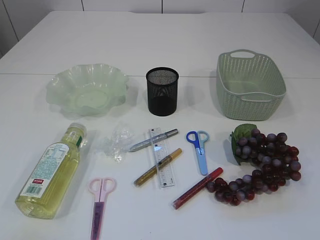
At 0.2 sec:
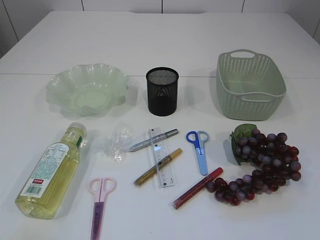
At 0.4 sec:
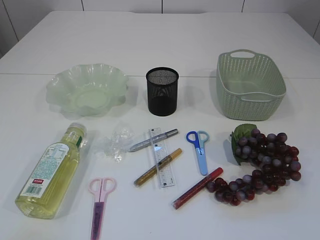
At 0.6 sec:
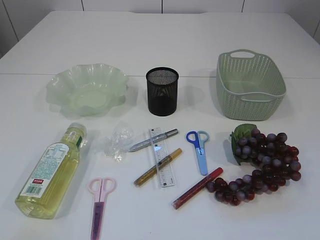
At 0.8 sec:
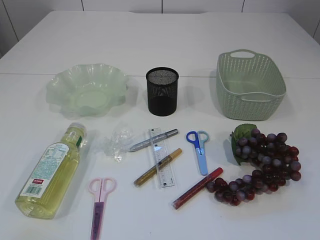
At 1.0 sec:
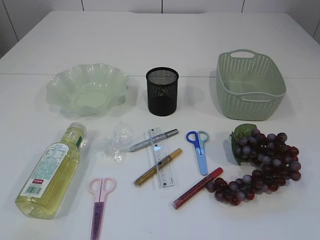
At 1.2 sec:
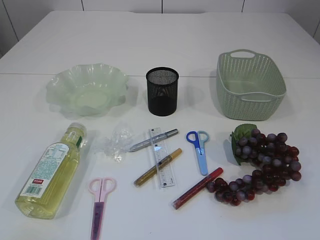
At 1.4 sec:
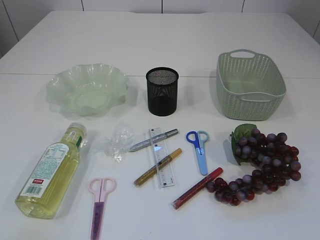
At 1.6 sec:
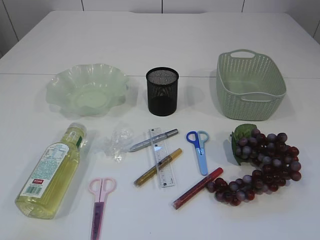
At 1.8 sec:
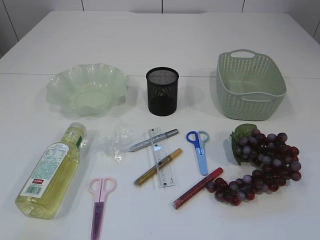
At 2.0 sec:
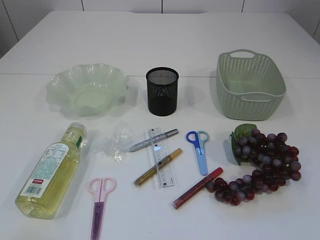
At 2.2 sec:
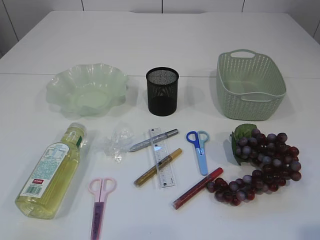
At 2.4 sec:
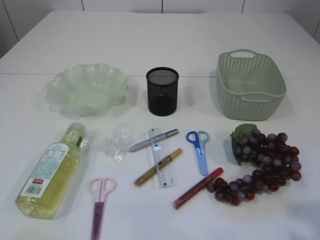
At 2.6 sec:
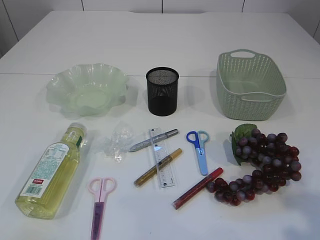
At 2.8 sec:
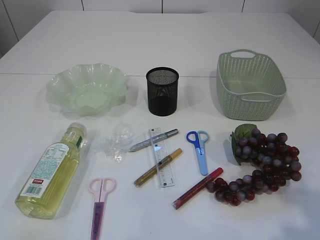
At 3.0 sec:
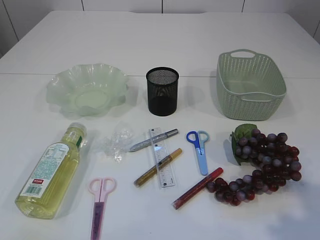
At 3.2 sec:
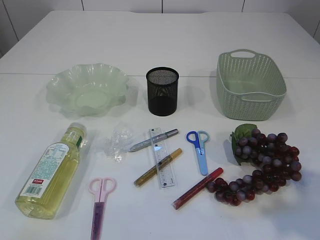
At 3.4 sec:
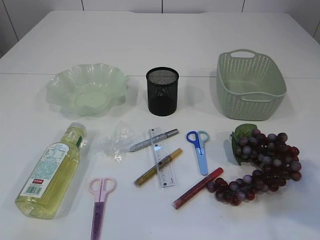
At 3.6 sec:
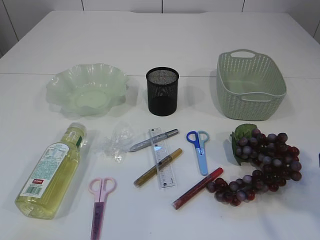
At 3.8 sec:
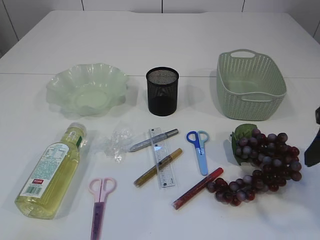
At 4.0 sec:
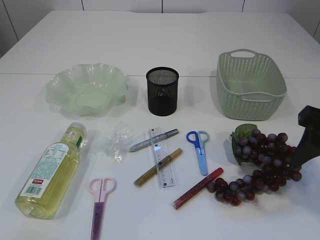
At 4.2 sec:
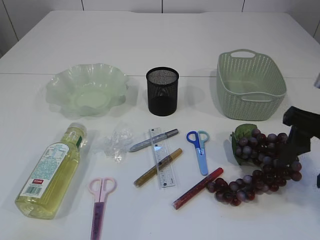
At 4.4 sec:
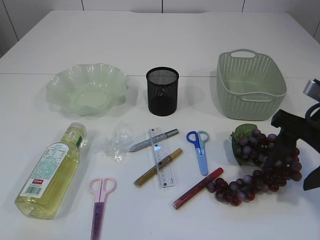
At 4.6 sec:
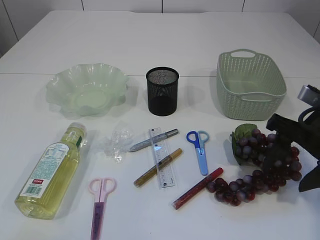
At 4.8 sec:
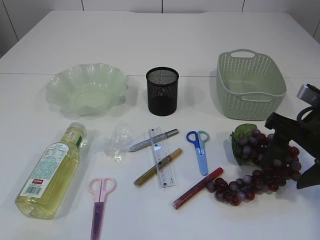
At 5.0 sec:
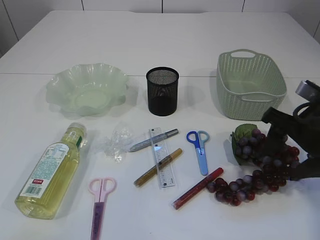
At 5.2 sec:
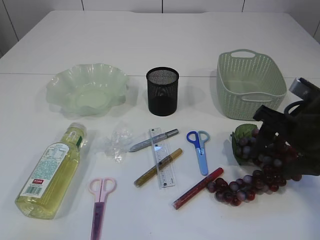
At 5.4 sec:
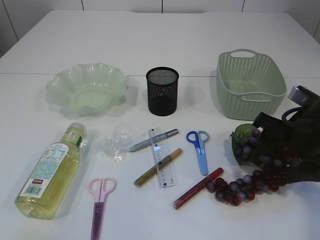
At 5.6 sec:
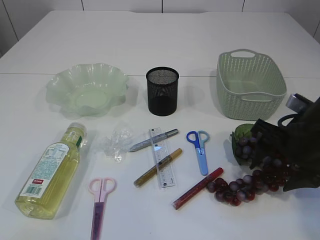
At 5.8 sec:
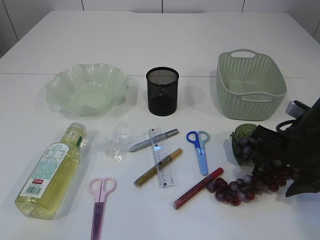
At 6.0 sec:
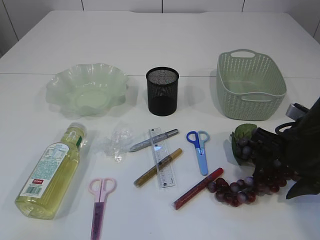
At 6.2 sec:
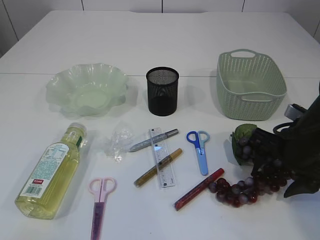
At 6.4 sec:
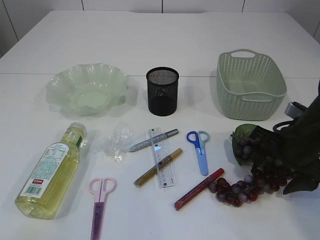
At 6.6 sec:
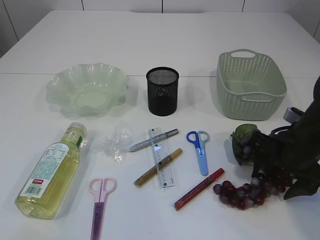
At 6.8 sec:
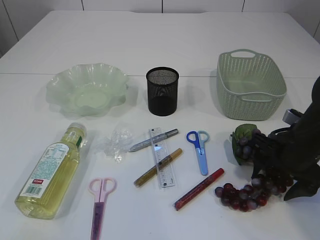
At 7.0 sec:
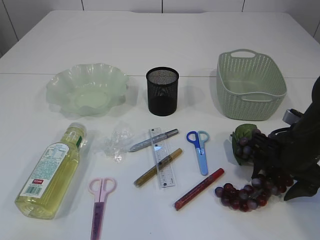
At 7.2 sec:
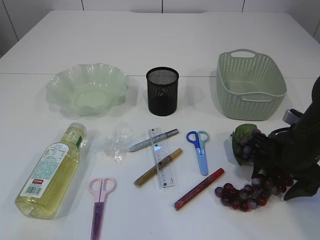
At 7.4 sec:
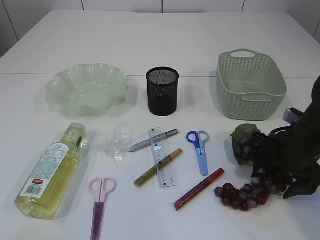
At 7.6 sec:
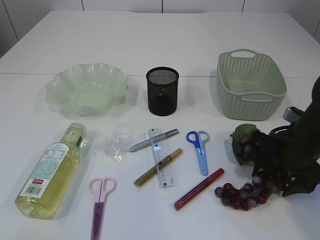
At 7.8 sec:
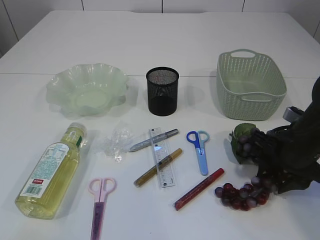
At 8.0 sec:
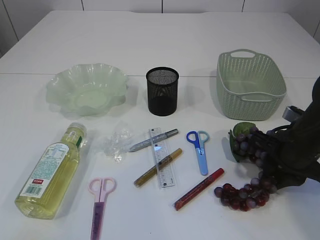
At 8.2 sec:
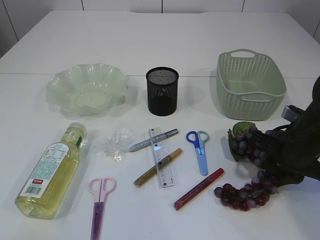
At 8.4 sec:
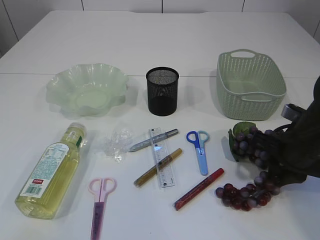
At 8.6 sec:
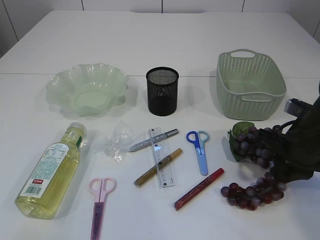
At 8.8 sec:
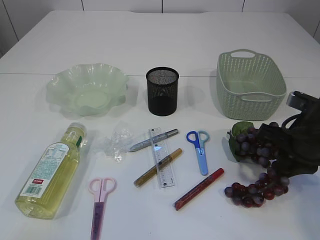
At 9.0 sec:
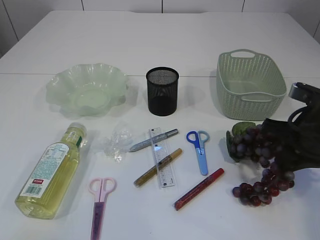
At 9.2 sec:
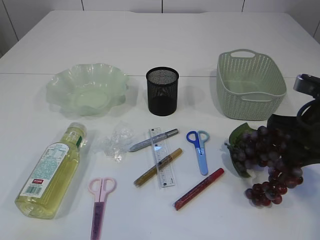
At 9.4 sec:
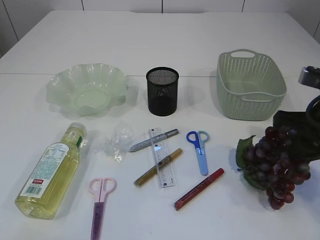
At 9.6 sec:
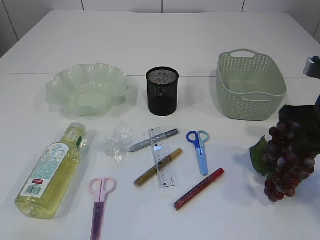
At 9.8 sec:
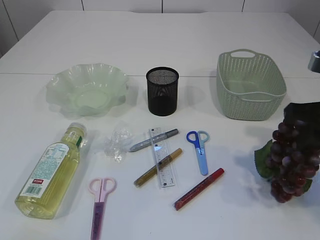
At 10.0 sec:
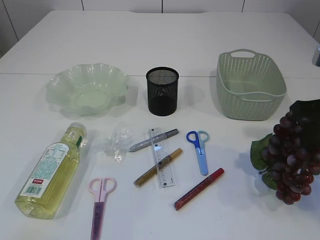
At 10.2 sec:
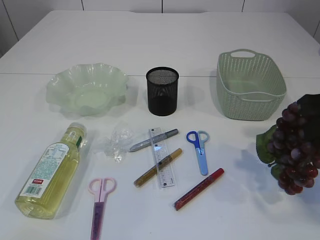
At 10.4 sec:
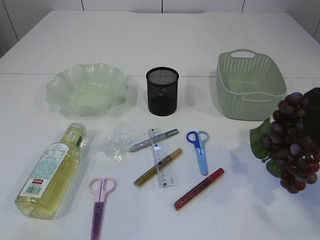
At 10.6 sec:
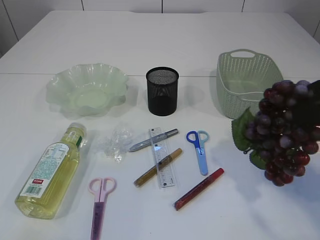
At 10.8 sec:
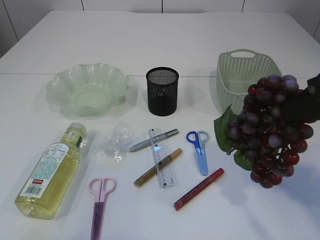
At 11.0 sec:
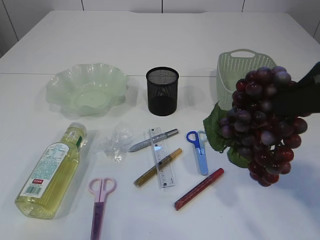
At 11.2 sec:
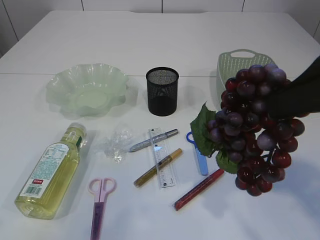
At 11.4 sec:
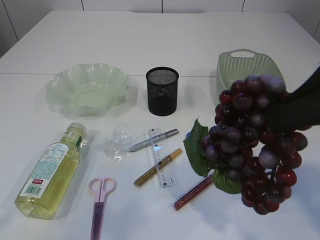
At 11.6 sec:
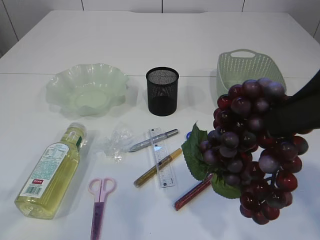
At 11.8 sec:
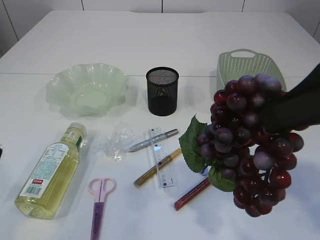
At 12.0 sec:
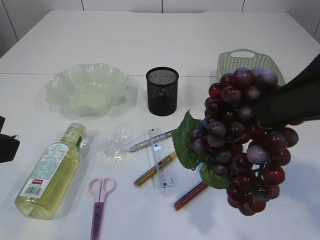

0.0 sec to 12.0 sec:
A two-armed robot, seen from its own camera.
1.6 sec to 3.0 sec: The right gripper travels forward by about 10 cm.
3.0 sec to 4.4 sec: The right gripper goes about 15 cm forward and downward.
4.4 sec to 6.0 sec: The right gripper travels downward by some 5 cm.
6.0 sec to 7.6 sec: The grippers make only small movements.
7.6 sec to 9.0 sec: The right gripper closes up.
9.0 sec to 10.4 sec: The right gripper is displaced upward and backward by approximately 15 cm.
10.4 sec to 12.0 sec: The right gripper goes about 5 cm upward. Meanwhile the left gripper heads forward and to the right, covering some 15 cm.

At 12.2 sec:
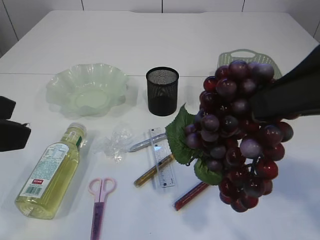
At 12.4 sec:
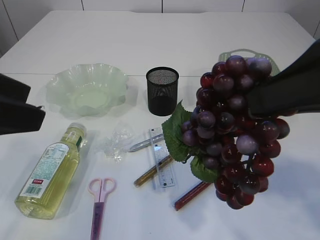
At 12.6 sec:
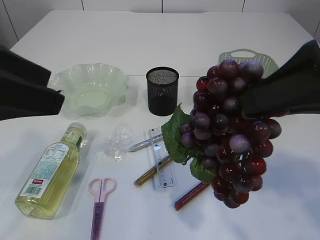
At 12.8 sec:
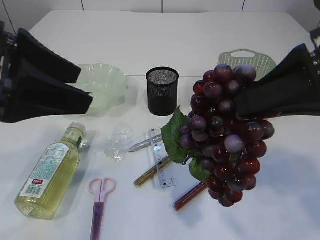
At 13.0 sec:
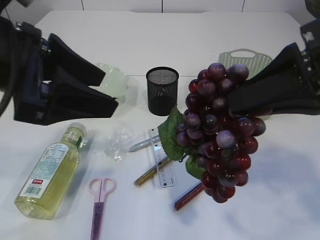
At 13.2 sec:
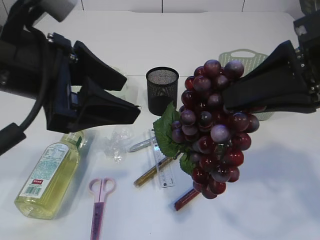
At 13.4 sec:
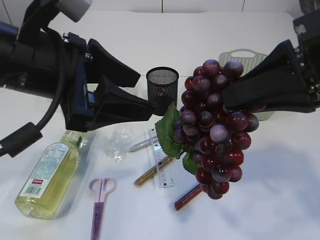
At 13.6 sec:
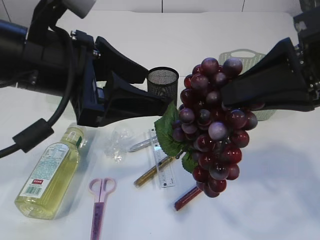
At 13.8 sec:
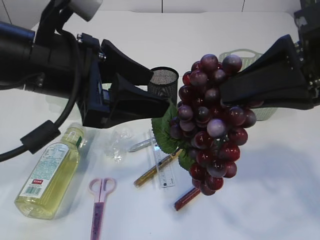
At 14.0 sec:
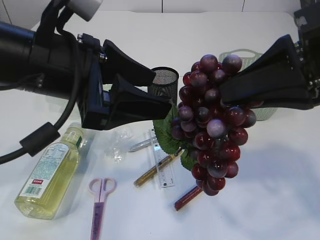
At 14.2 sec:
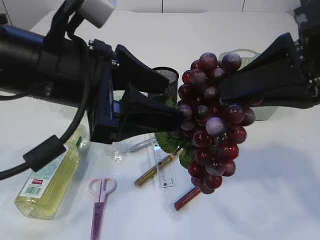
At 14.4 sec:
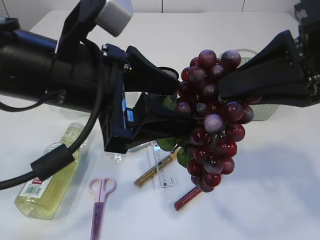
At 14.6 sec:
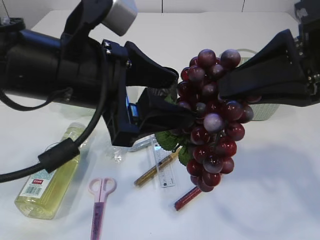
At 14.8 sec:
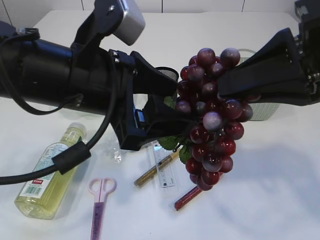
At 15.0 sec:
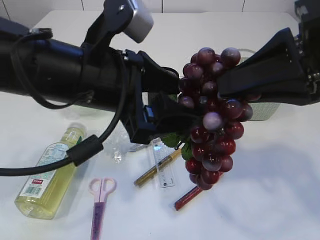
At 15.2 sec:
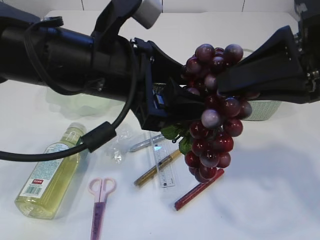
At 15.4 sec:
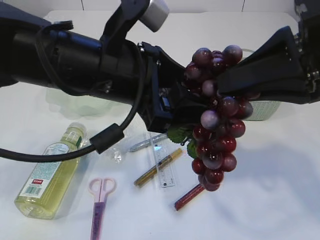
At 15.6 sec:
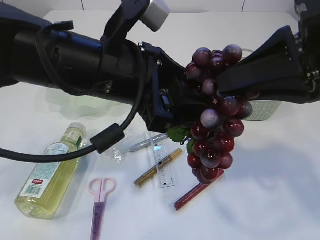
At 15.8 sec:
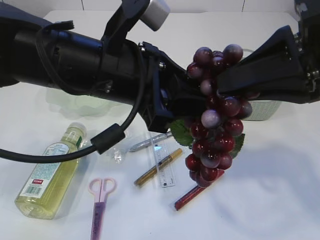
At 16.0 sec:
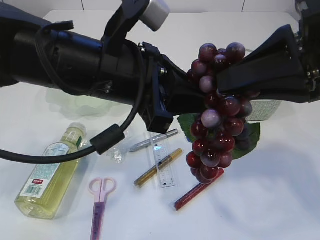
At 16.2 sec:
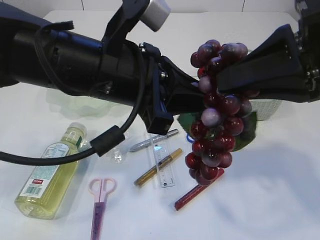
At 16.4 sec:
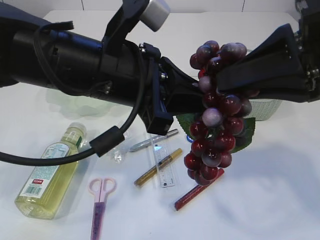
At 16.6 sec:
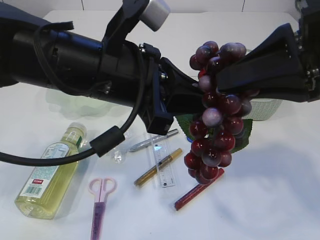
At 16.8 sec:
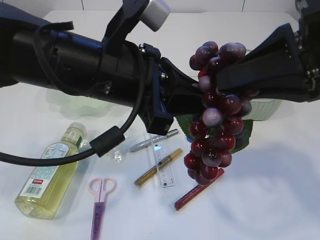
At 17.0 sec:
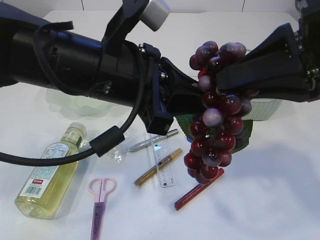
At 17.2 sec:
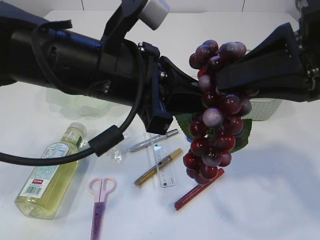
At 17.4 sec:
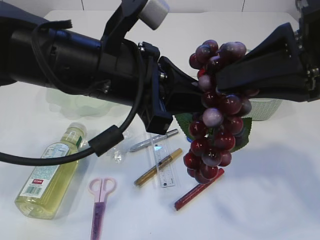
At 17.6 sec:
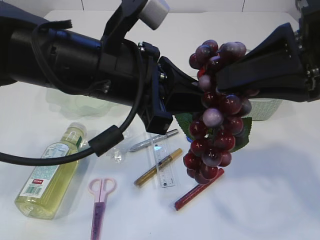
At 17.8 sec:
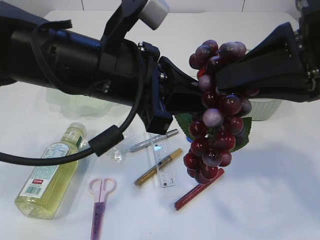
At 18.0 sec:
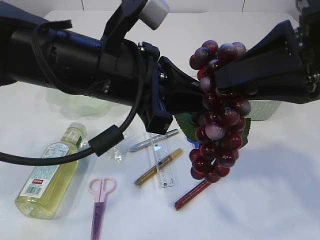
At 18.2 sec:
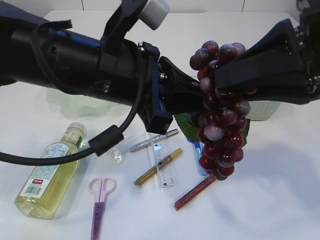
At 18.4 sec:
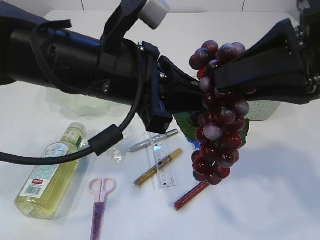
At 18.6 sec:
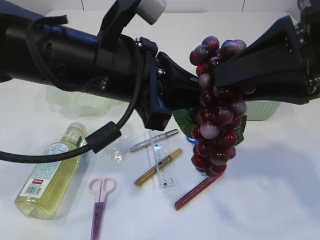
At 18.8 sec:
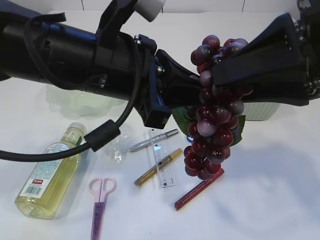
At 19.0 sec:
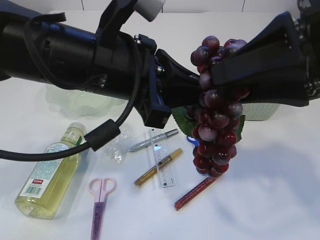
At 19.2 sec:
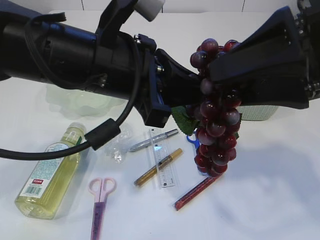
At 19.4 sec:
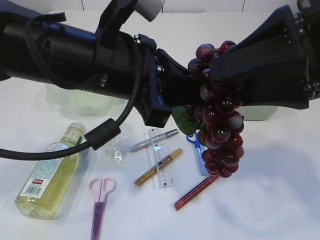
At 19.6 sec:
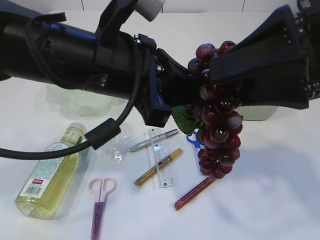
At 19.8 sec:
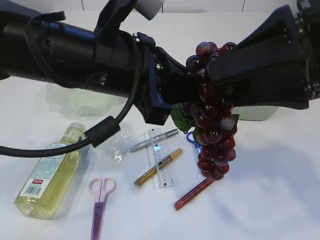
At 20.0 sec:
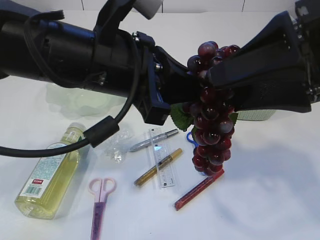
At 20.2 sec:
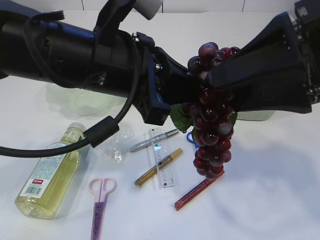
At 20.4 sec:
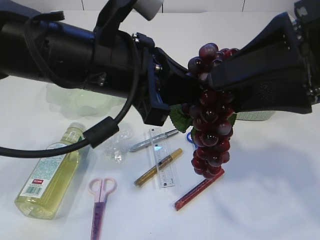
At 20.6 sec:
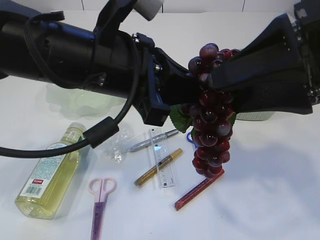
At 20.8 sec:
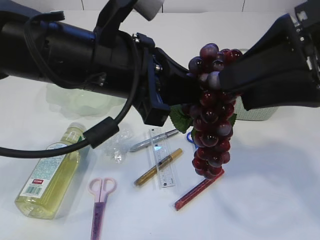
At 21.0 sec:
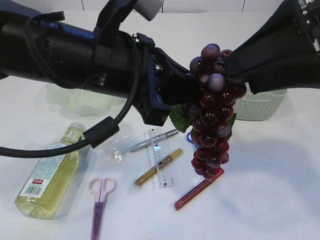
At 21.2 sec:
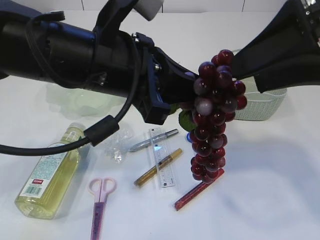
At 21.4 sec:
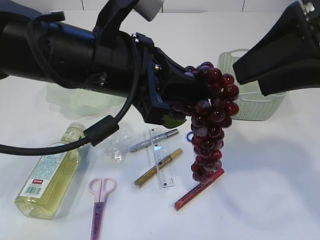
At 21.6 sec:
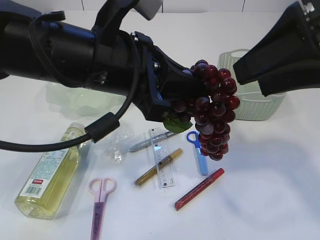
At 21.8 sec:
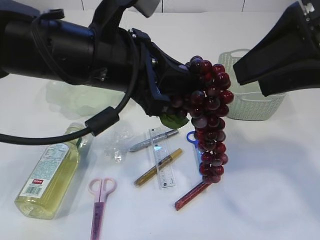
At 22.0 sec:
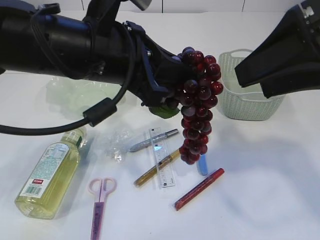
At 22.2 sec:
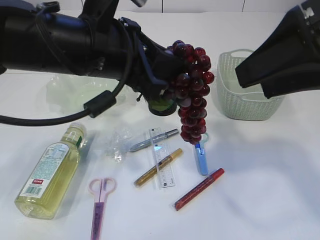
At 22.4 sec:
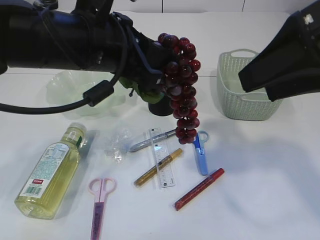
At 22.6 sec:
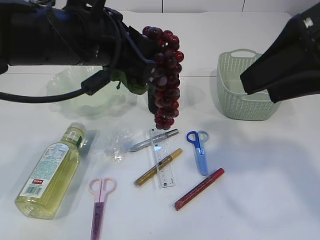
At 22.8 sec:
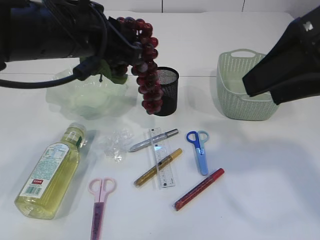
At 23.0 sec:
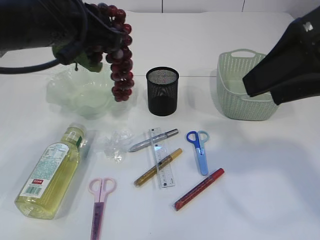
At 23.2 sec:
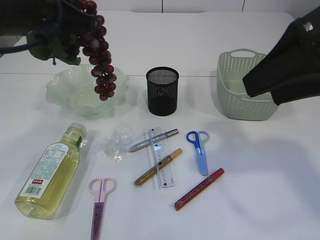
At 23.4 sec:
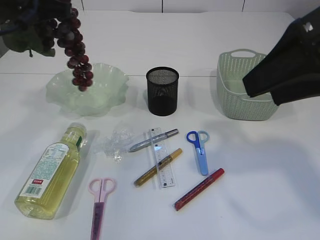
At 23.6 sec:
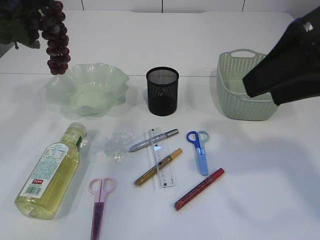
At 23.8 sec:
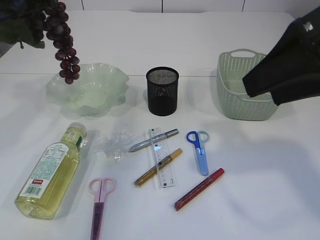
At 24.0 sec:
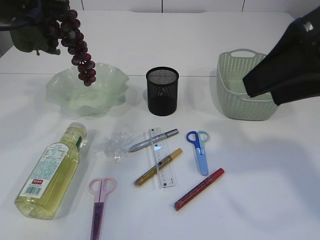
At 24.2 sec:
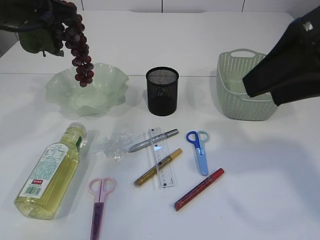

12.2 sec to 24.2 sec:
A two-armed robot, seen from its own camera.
Step, 12.6 sec to 22.2 sec: Hand over the grapes.
12.2 sec to 13.8 sec: The left gripper moves to the right and forward, approximately 15 cm.
13.8 sec to 15.2 sec: The left gripper shifts approximately 5 cm to the right.
15.2 sec to 16.6 sec: The left gripper closes.
16.6 sec to 18.2 sec: Both grippers stay about where they are.
18.2 sec to 19.8 sec: The right gripper opens its fingers.
19.8 sec to 21.2 sec: The grippers move only a little.
22.6 sec to 24.2 sec: The left gripper heads to the left and forward, covering roughly 20 cm.
